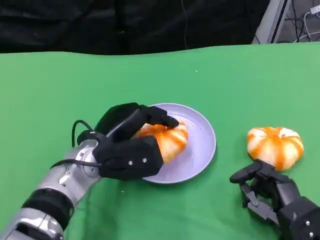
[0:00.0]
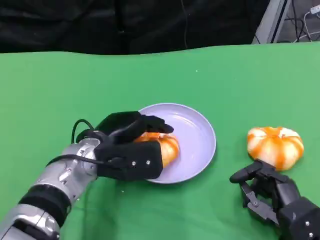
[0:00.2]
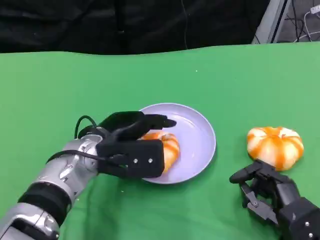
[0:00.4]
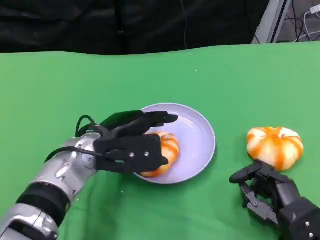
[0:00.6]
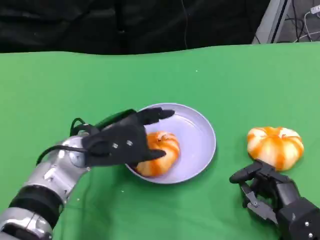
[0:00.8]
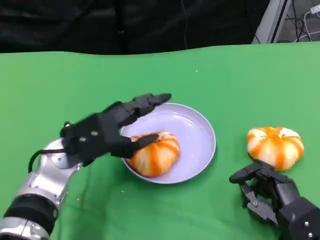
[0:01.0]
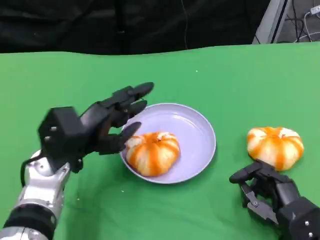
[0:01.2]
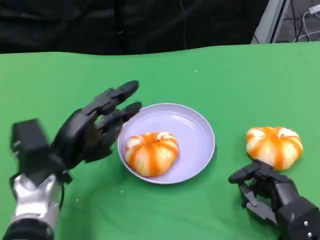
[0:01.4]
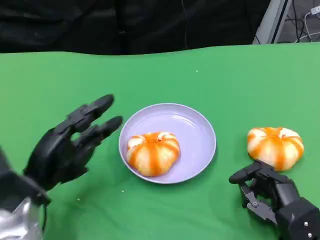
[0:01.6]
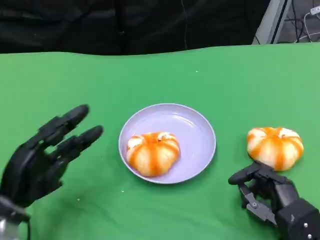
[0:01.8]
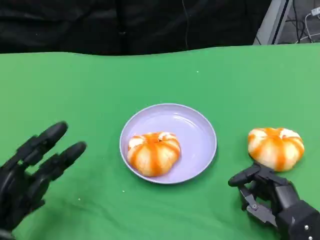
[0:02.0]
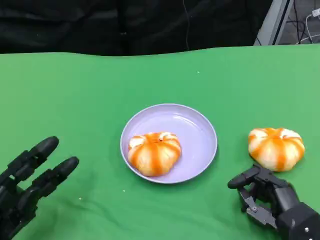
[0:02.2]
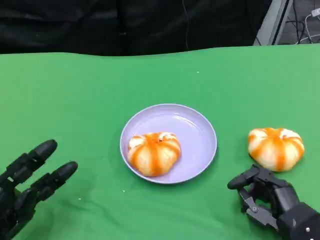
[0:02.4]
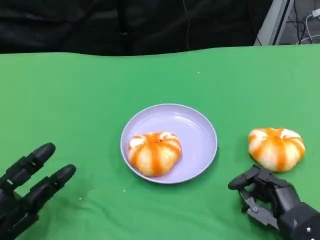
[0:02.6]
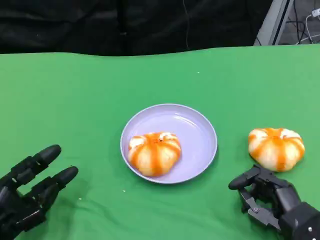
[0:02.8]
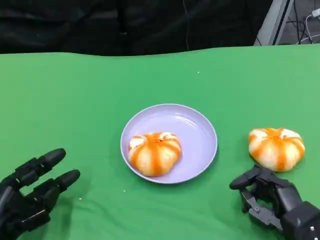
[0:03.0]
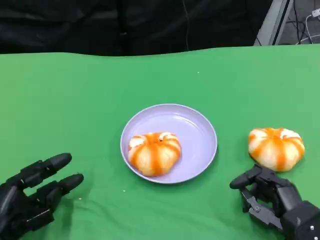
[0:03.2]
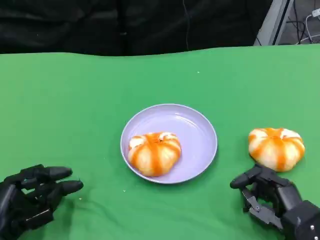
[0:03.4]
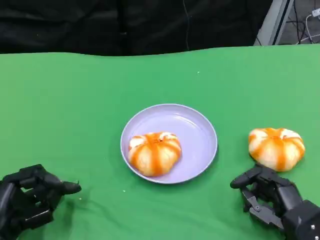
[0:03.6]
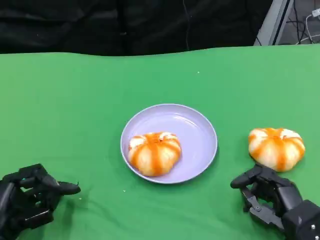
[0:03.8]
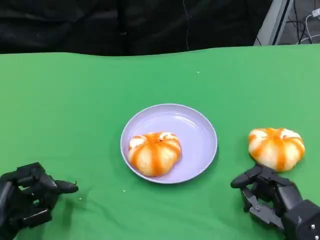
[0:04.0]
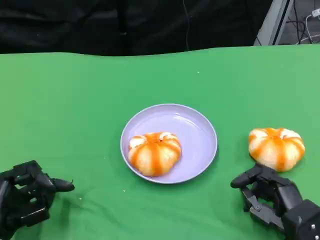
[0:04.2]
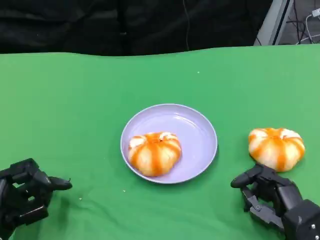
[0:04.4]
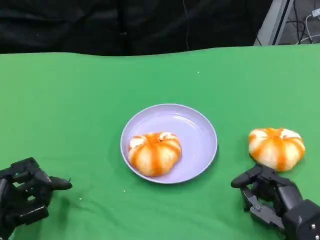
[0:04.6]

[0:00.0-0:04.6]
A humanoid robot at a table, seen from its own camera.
Task of the whole recording: Grasp the bread from the table and place it into the plate.
0:00.0 to 0:01.6: The left hand travels to the left by approximately 10 cm.
0:01.6 to 0:03.0: The left hand goes approximately 5 cm backward.
0:03.0 to 0:04.6: The hands make only small movements.

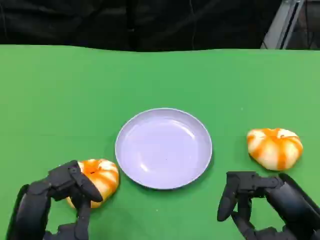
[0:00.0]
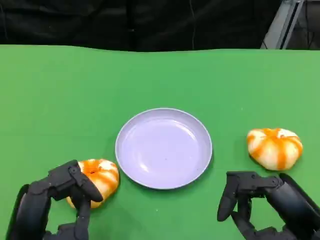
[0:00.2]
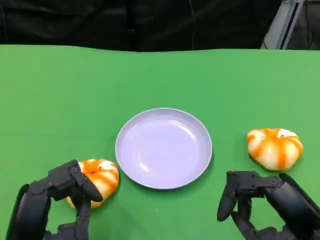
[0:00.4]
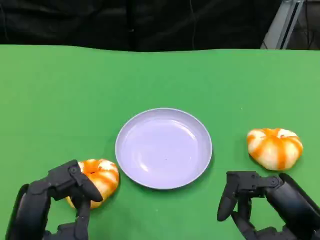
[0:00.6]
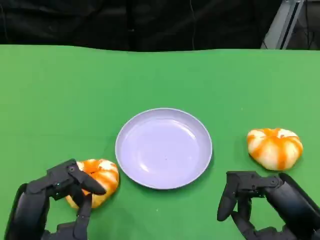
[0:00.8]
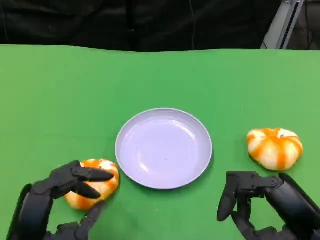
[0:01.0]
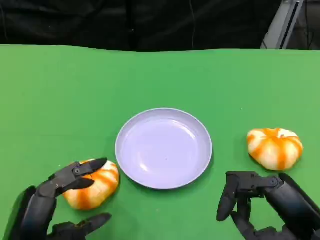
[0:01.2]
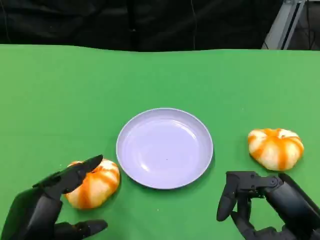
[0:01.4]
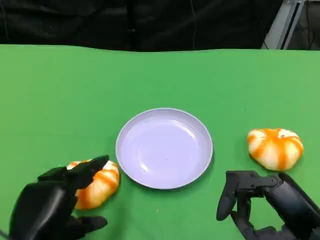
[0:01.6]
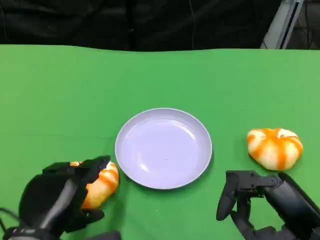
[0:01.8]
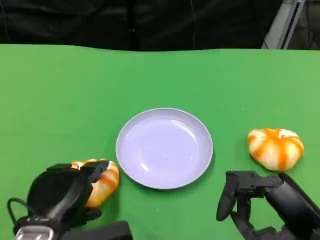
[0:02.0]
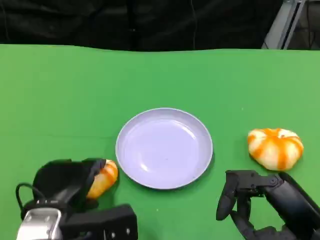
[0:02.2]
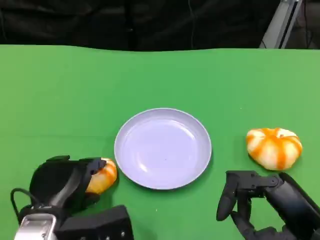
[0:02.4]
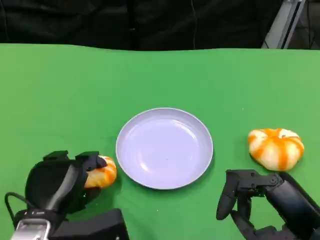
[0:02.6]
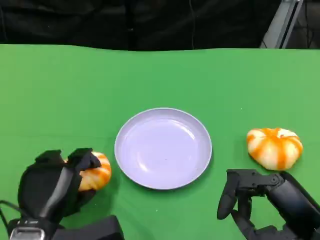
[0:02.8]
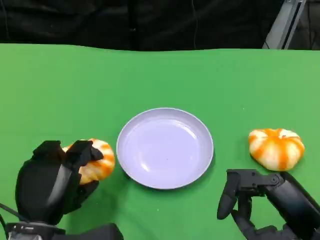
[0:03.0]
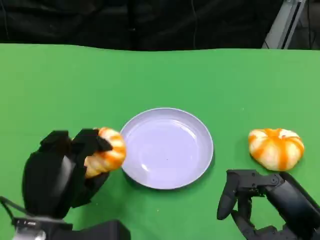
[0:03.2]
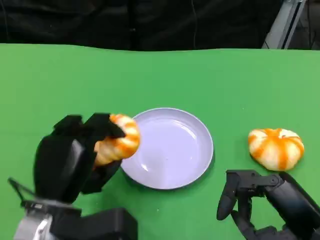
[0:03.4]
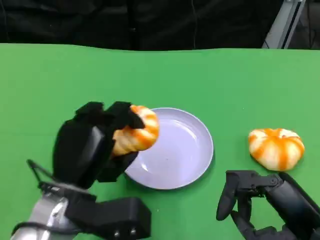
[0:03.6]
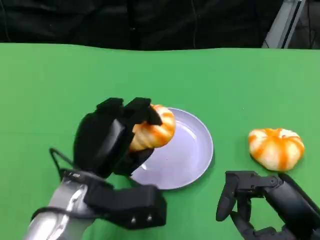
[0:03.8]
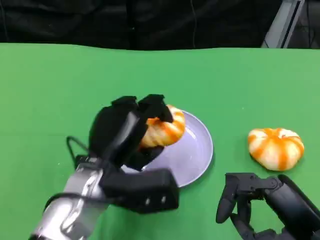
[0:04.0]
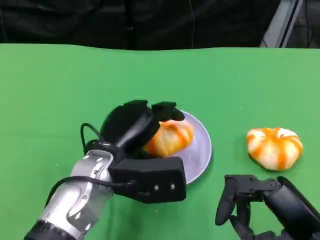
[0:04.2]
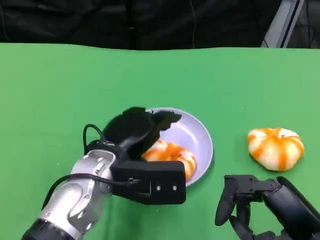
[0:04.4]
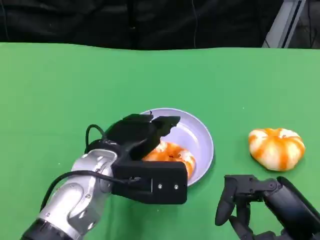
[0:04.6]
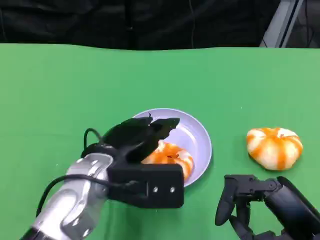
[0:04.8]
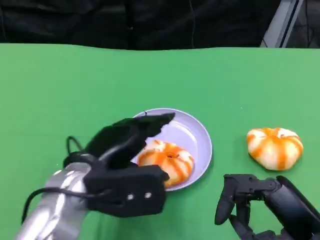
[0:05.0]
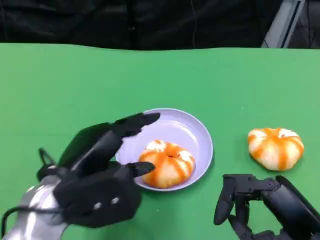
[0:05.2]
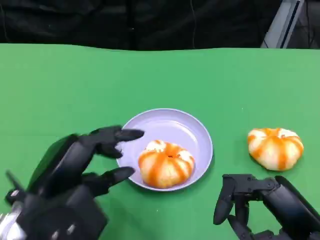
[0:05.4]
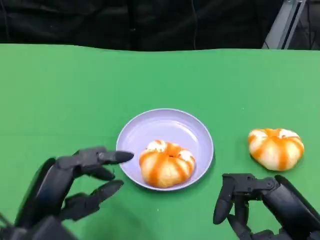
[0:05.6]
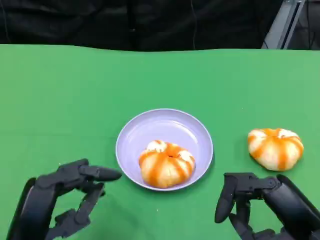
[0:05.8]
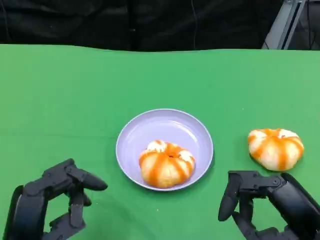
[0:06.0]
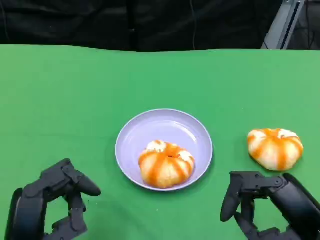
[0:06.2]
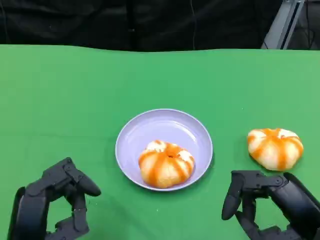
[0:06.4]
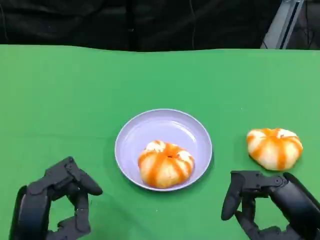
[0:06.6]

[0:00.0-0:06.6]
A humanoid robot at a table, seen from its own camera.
Task of the whole recording: Grasp the bread from the table and place it into the plate.
0:03.2 to 0:05.0: The left hand heads upward, covering some 5 cm.
0:05.0 to 0:06.6: The left hand shifts some 10 cm backward and to the left.

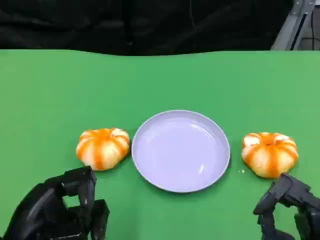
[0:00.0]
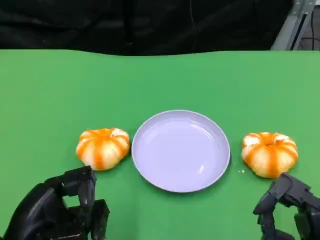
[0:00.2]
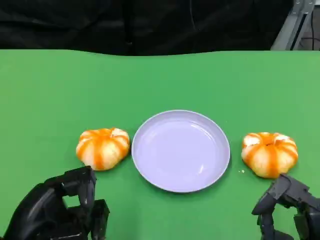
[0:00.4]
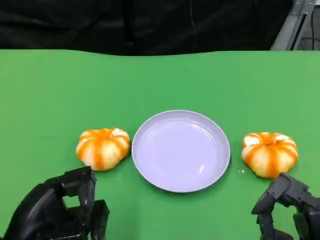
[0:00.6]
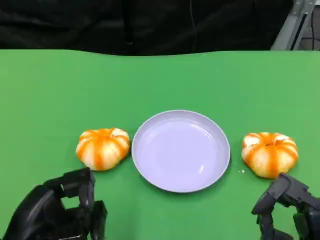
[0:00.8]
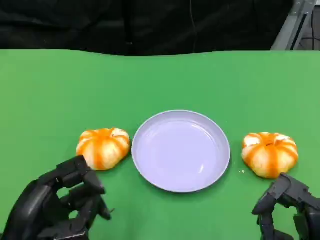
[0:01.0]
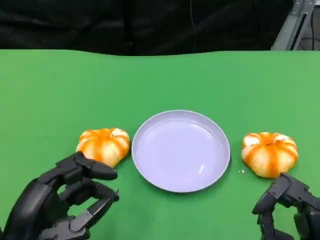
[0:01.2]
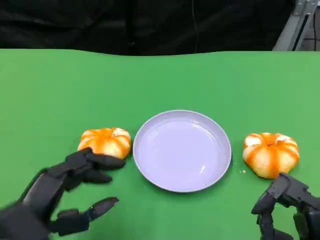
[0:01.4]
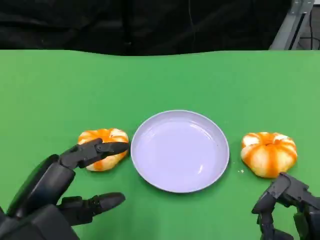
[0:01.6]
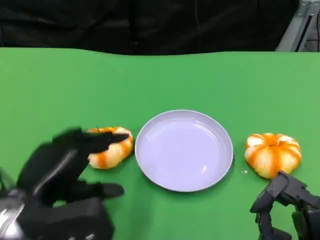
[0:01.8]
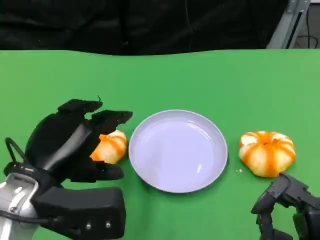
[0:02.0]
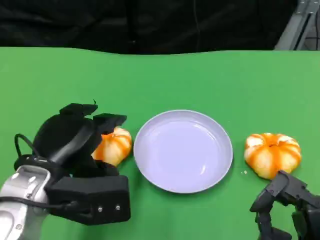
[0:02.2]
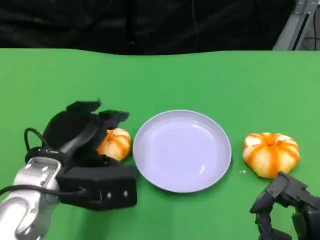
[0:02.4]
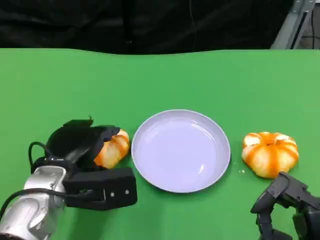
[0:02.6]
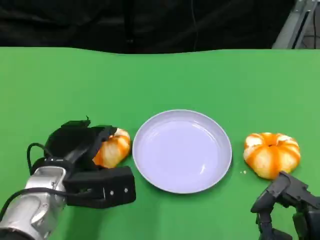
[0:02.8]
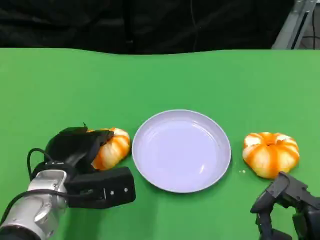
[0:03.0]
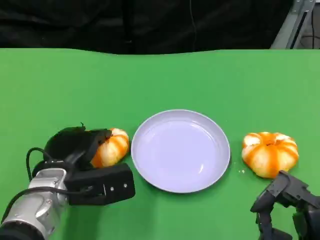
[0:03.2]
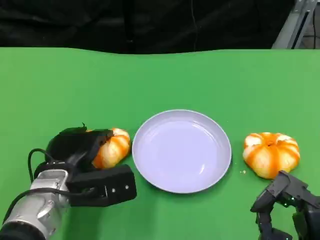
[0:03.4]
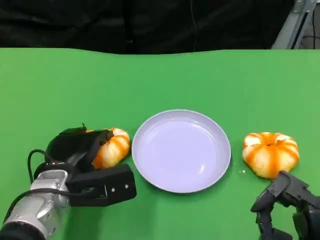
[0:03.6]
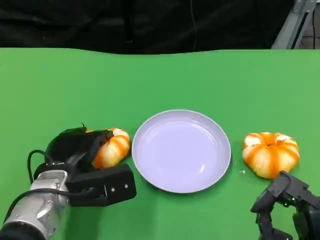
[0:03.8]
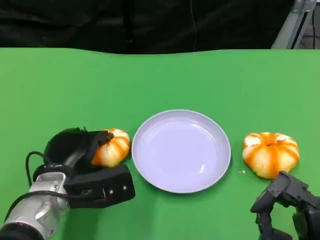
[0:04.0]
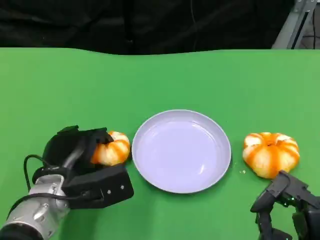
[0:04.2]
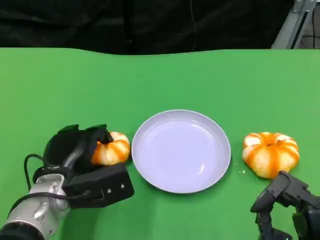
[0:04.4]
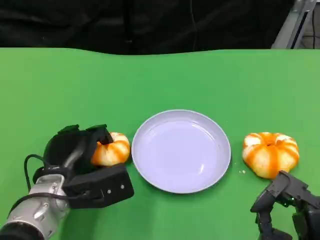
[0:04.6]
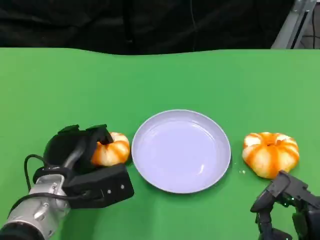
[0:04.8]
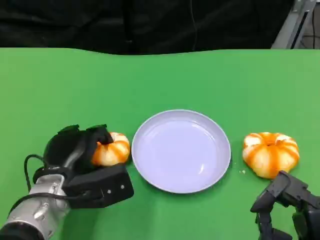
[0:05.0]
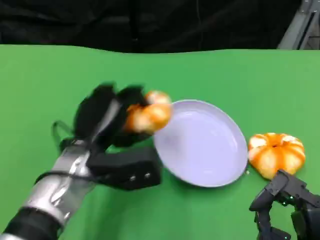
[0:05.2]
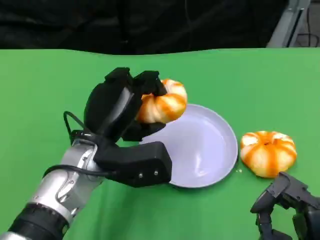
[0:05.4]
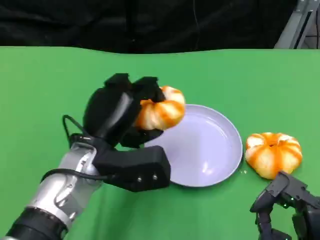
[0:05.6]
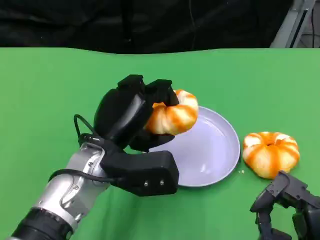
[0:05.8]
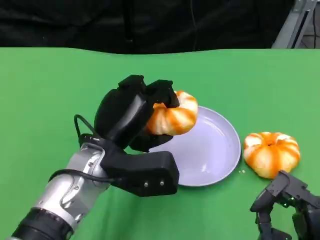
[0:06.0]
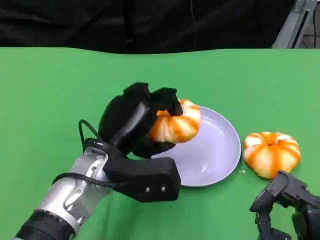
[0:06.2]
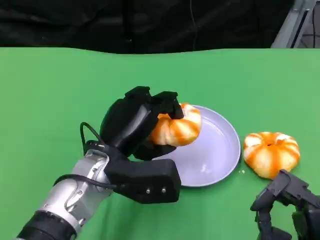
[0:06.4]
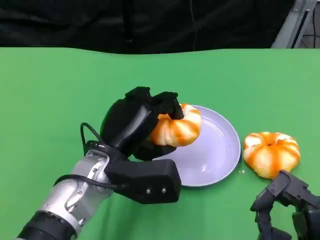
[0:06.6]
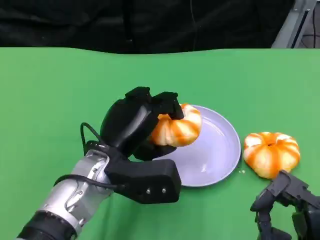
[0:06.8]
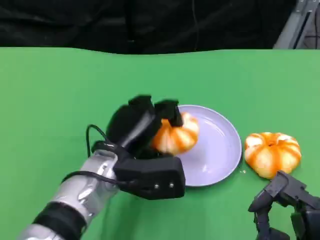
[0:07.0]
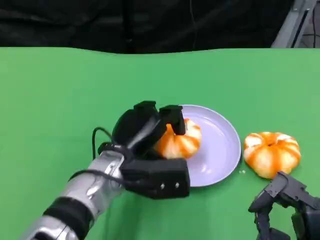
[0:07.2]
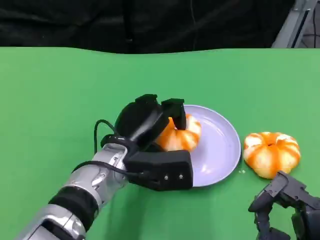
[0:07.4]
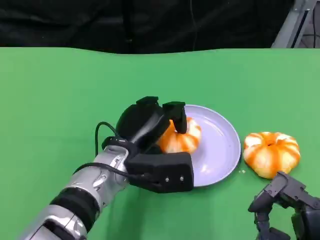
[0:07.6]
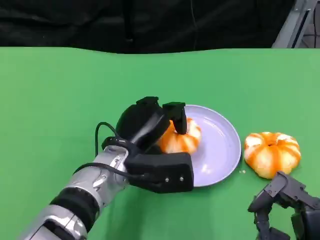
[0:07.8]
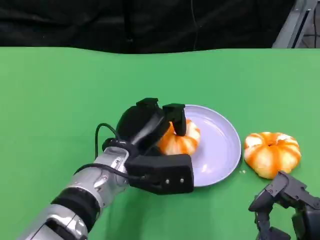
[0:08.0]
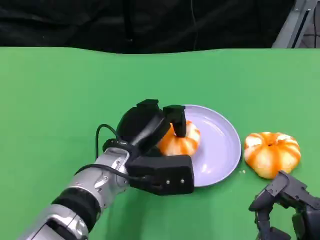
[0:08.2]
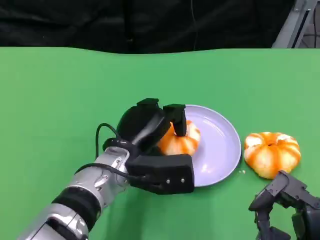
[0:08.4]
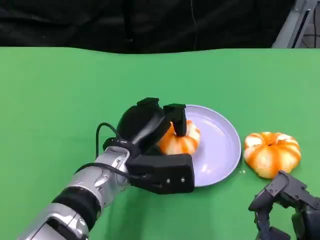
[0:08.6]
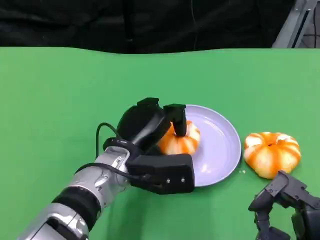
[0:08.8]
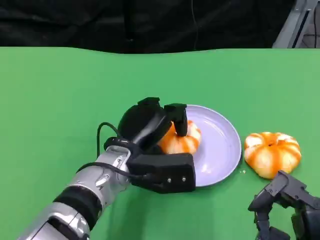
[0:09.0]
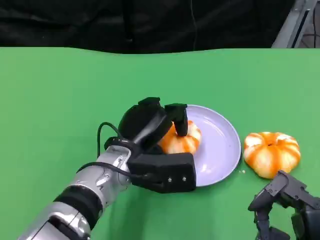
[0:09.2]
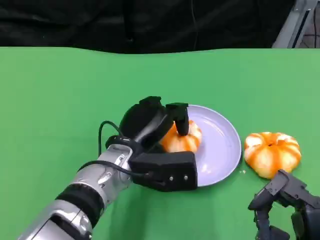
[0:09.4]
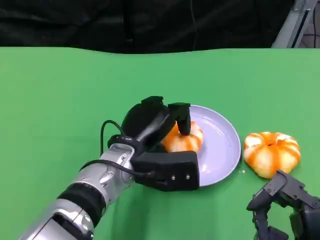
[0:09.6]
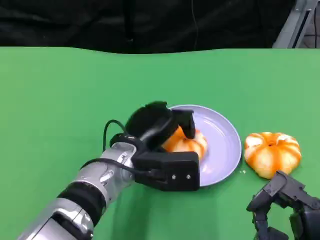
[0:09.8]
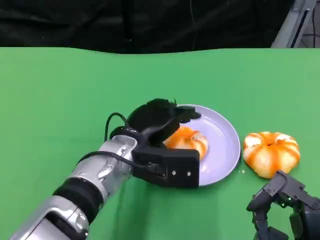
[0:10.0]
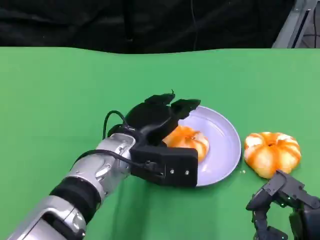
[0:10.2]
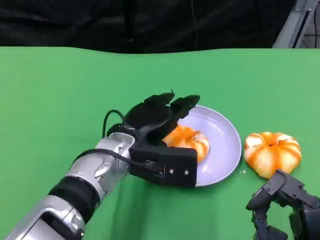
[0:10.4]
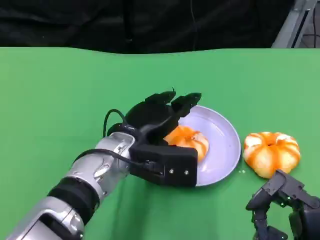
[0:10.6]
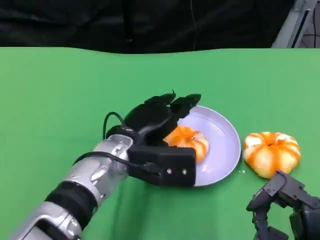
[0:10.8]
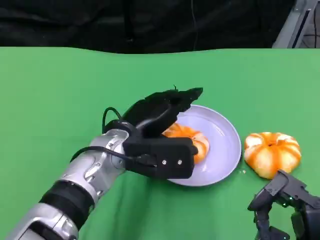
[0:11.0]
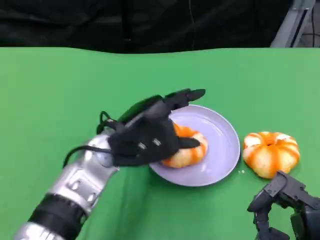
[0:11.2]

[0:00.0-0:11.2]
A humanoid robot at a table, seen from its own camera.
Task of the whole recording: Grasp the bread from the table and place it into the plate.
0:01.6 to 0:03.2: The left hand heads forward and downward, covering approximately 15 cm.
0:03.2 to 0:04.8: There are only small adjustments of the hands.
0:04.8 to 0:06.4: The left hand shifts some 10 cm to the right and upward.
0:06.4 to 0:08.0: The hands move only a little.
0:08.0 to 0:09.6: Both hands stay about where they are.
0:09.6 to 0:11.2: The left hand shifts approximately 5 cm upward.
